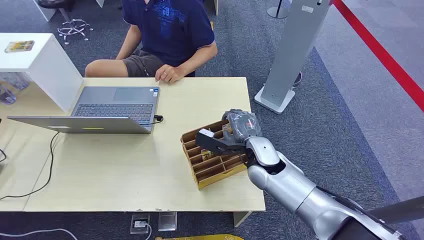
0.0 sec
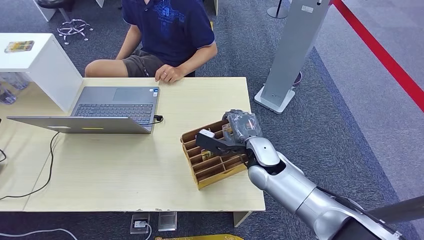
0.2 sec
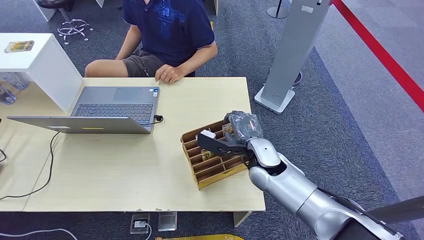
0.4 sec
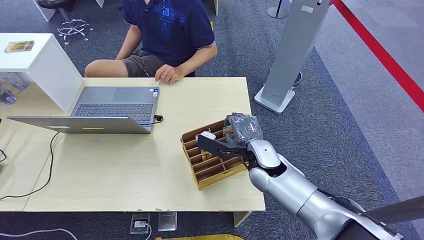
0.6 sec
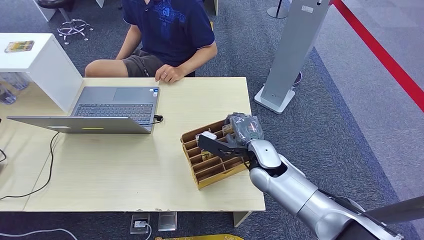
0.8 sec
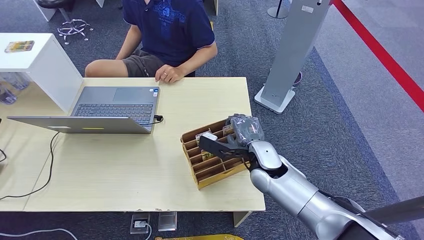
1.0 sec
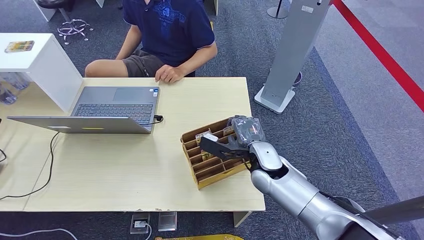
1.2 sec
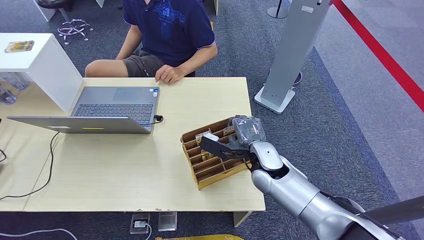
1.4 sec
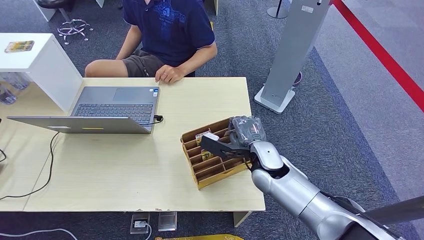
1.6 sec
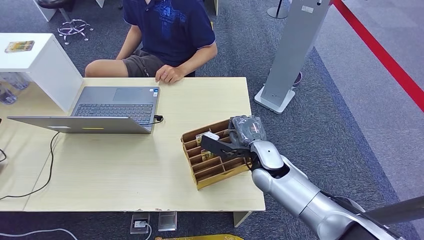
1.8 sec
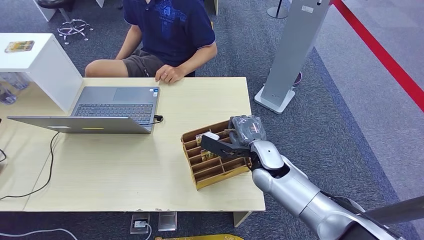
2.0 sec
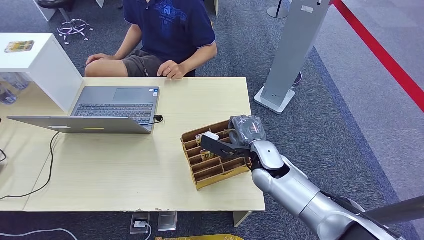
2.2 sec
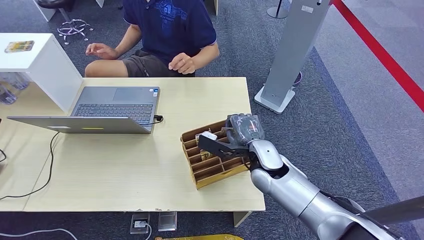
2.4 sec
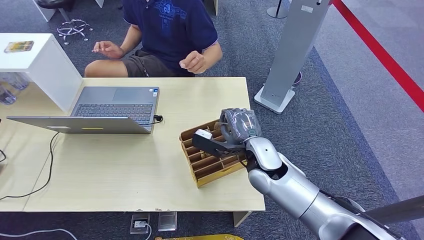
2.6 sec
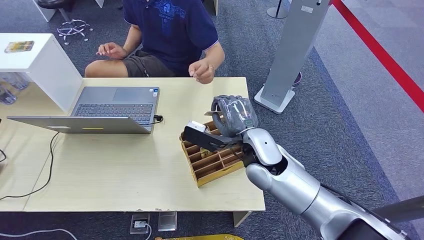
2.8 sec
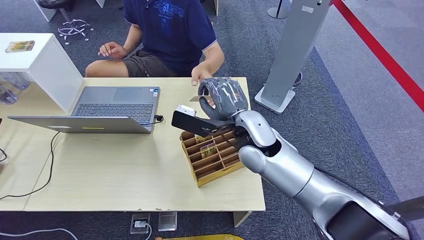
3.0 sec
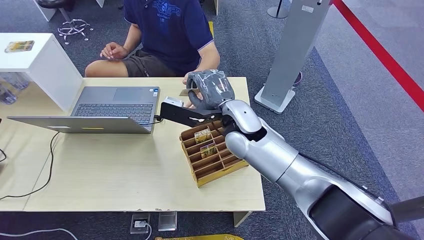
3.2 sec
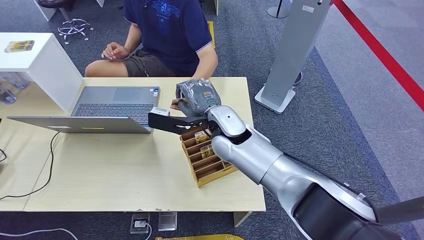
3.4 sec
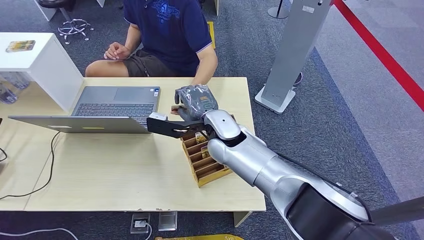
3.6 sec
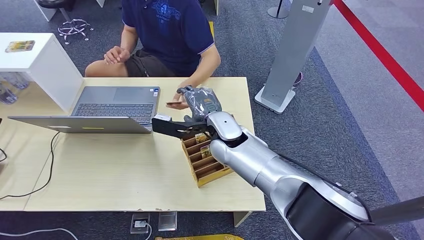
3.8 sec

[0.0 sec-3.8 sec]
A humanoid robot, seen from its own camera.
Step, 0.0 sec to 1.8 sec: Pick up the key card from the card box.
Step, 2.2 sec to 3.8 sec: Hand the key card to the target.
1.2 sec to 2.6 sec: The hands make only small movements.
2.6 sec to 3.8 sec: The right hand goes about 10 cm to the left.
